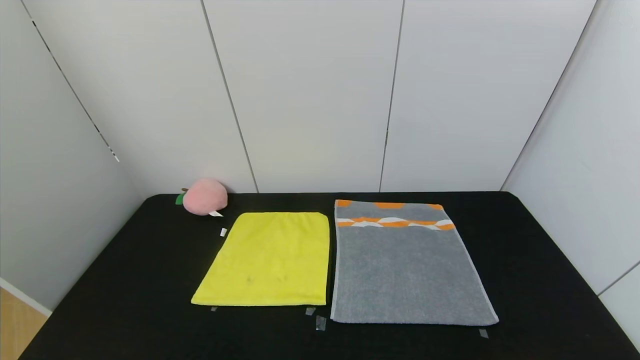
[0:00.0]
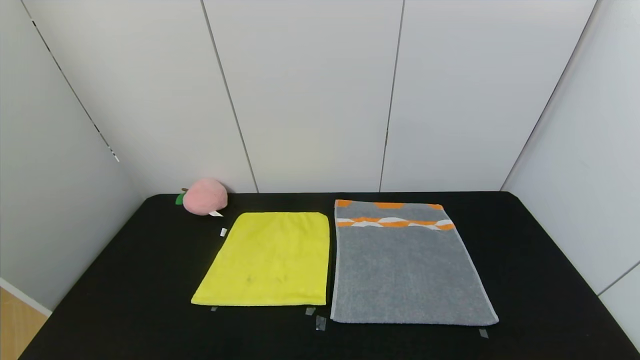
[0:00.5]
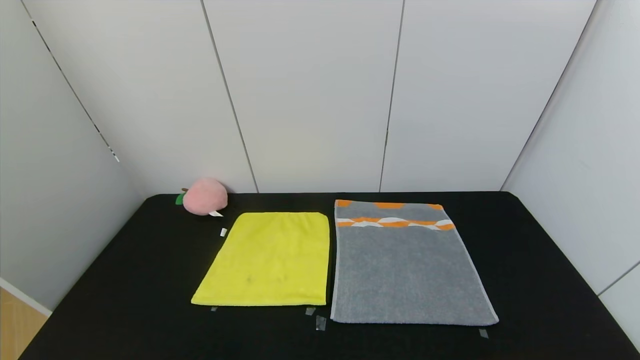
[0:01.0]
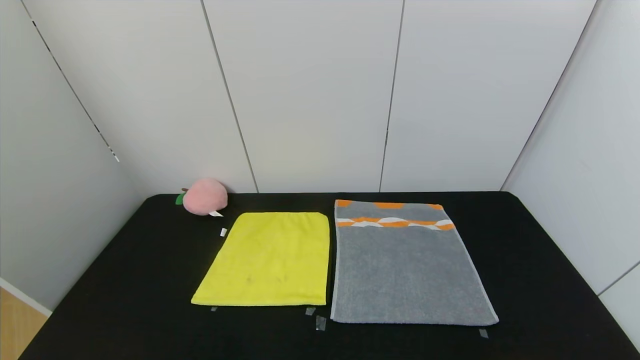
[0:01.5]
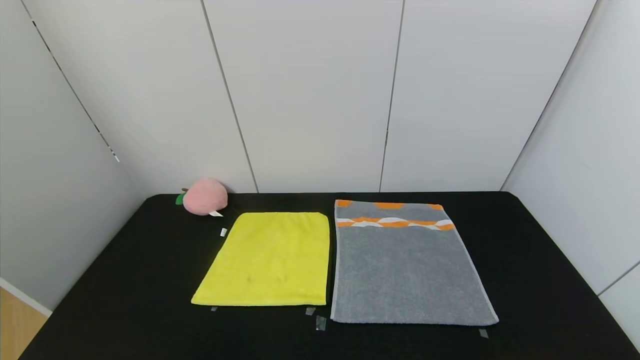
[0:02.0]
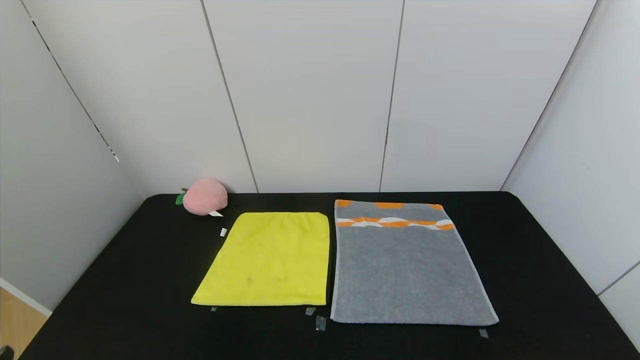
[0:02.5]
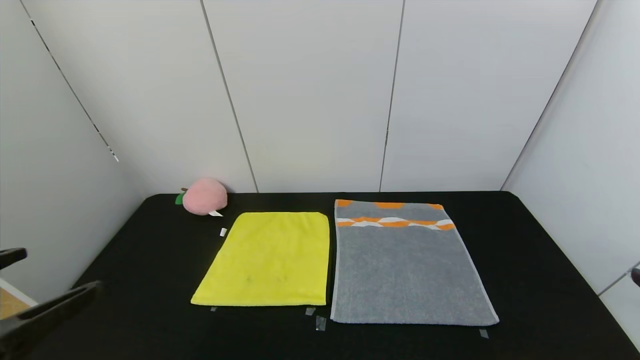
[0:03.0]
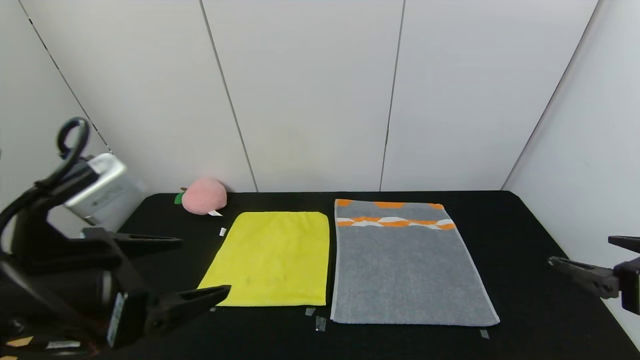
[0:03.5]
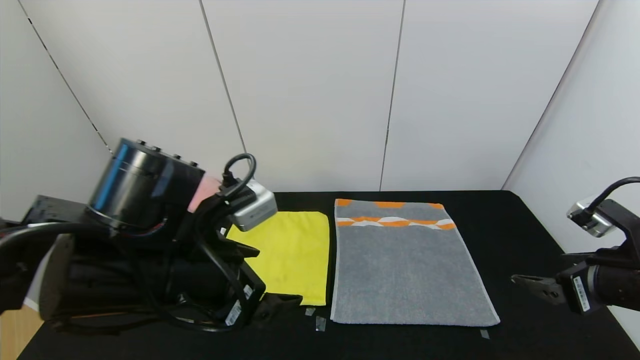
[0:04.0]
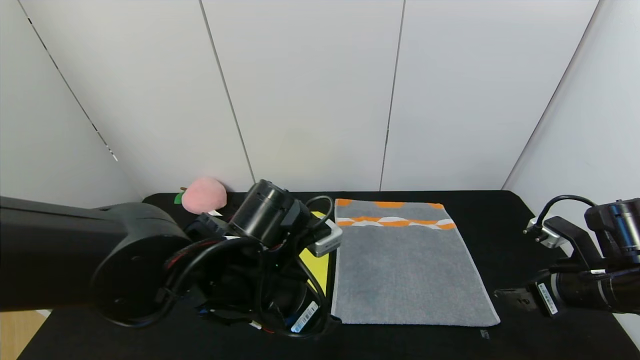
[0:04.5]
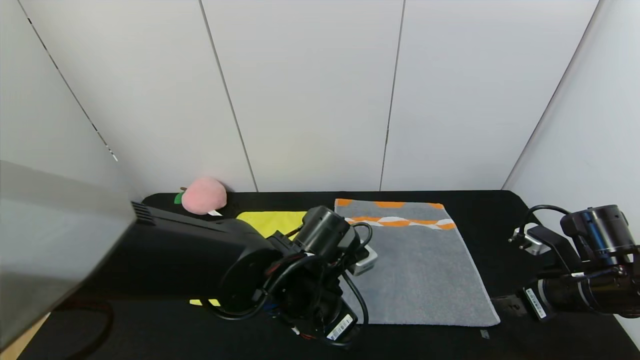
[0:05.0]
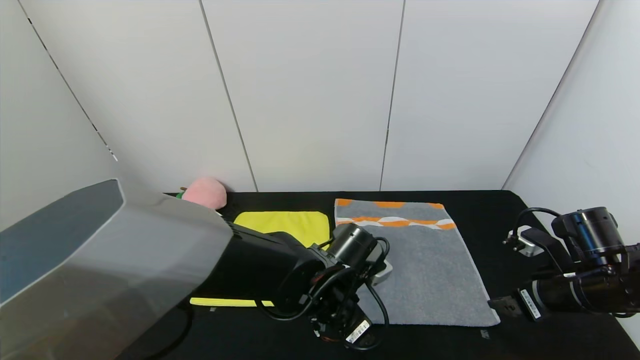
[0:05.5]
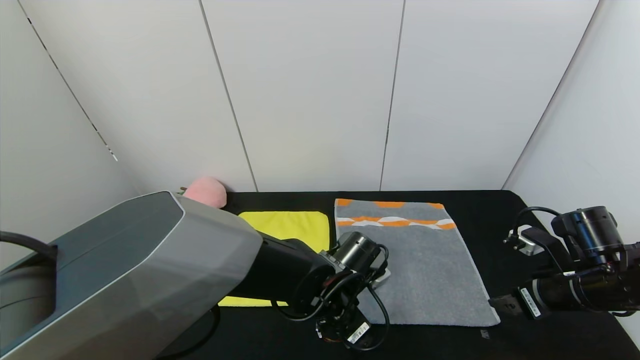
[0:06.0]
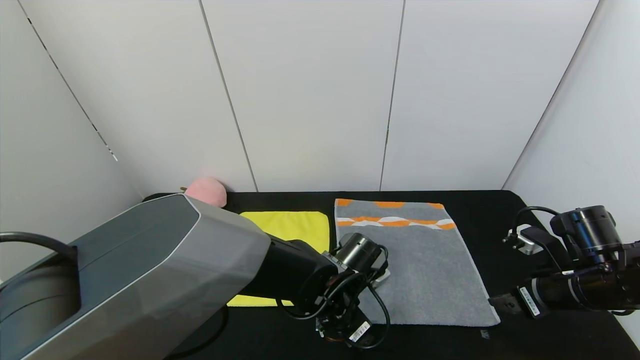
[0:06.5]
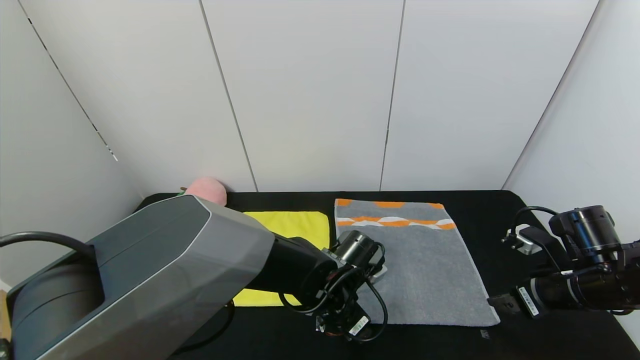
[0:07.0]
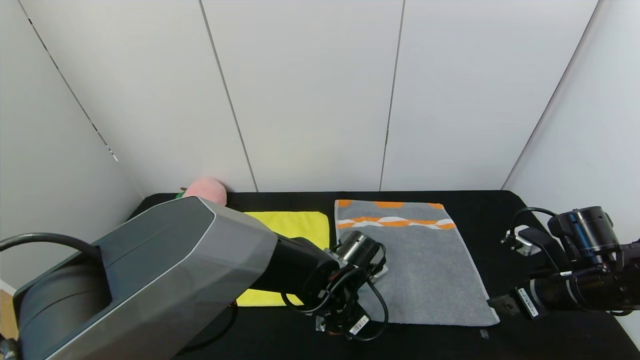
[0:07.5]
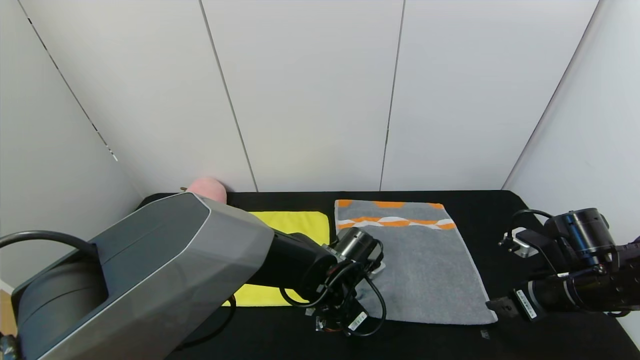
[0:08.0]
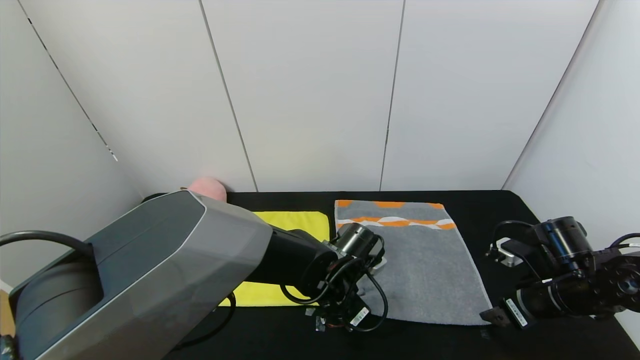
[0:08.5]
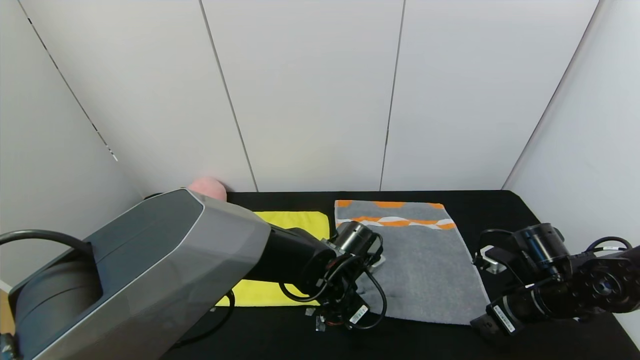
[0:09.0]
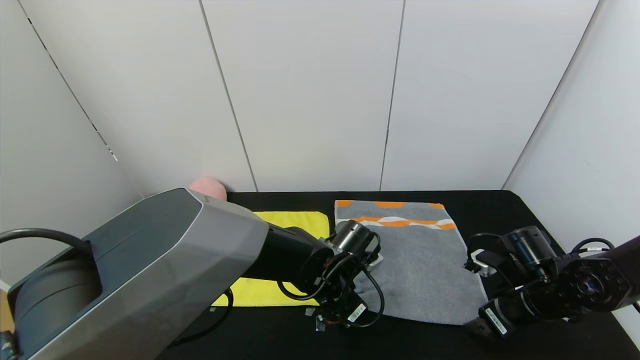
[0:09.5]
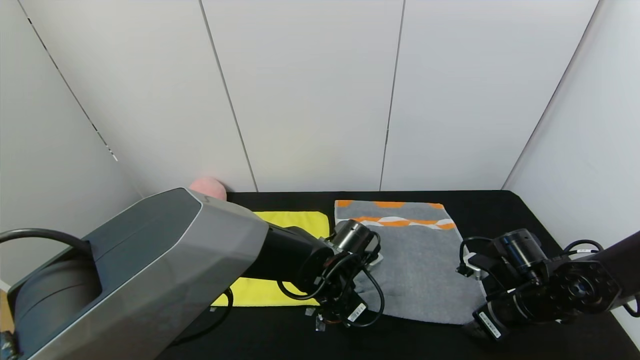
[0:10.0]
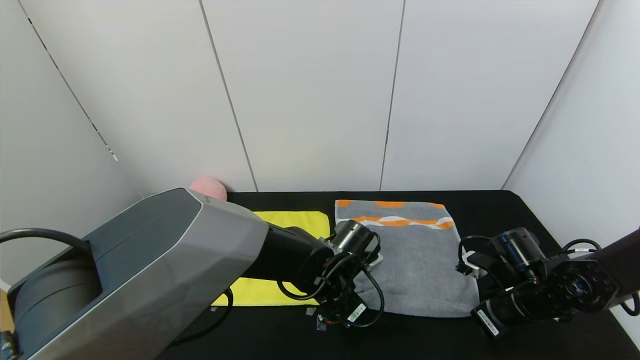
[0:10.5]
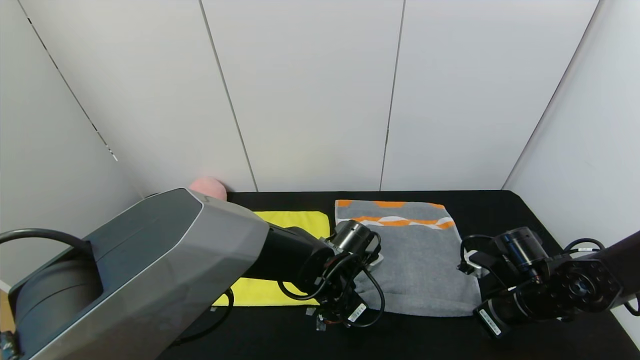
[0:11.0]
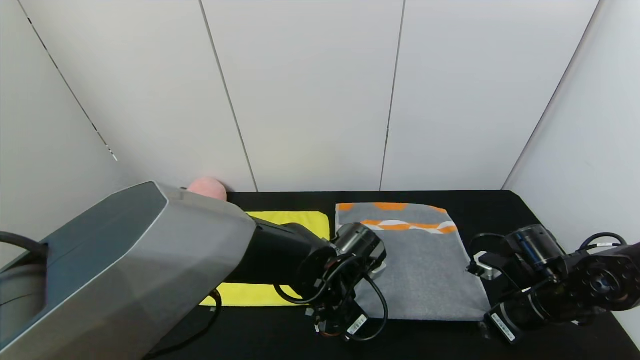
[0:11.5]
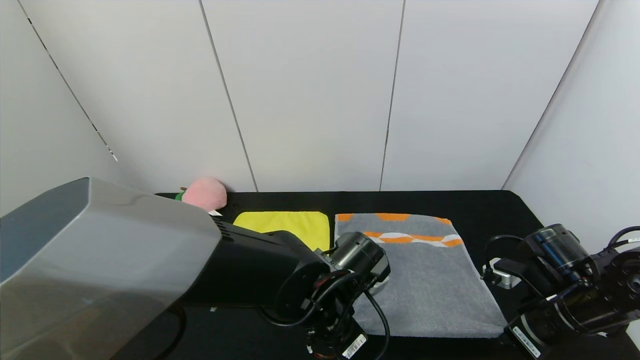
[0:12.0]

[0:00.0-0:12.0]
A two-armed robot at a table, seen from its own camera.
Task of the whole recording: Use the gripper to fold the yellow towel and grey towel in half twice,then put the yellow towel on the grey towel.
0:02.0 to 0:04.0: The left gripper goes about 30 cm forward, to the right and upward. Meanwhile the right gripper goes some 25 cm forward.
0:04.0 to 0:06.0: The right gripper shifts about 10 cm downward and forward. The left gripper moves downward, to the right and forward, roughly 25 cm.
0:06.0 to 0:08.0: The left gripper closes up.
0:08.0 to 0:10.0: The right gripper travels downward by some 5 cm.
0:10.0 to 0:12.0: The right gripper ends up roughly 5 cm from where it was, and closes its fingers. Meanwhile the left gripper goes roughly 5 cm backward.

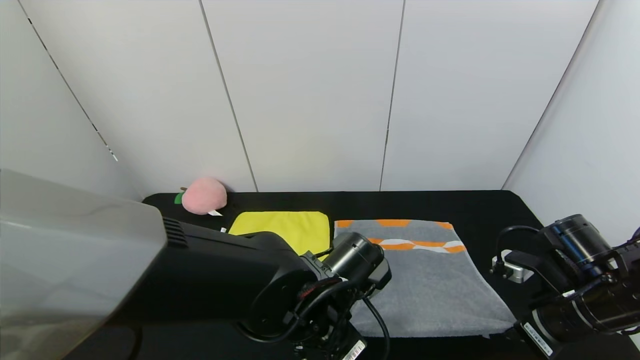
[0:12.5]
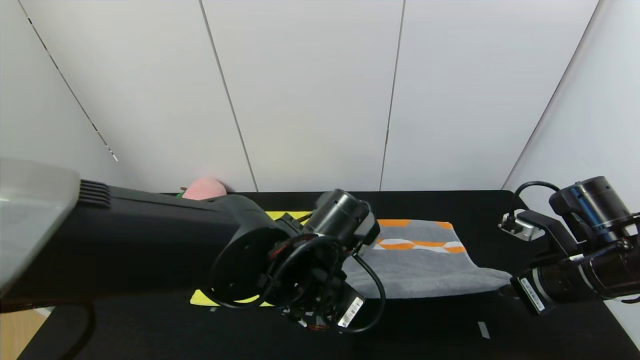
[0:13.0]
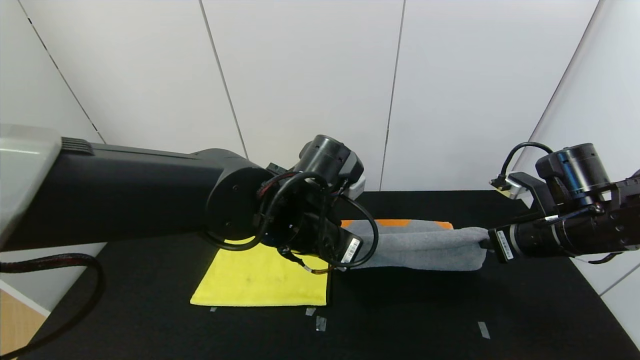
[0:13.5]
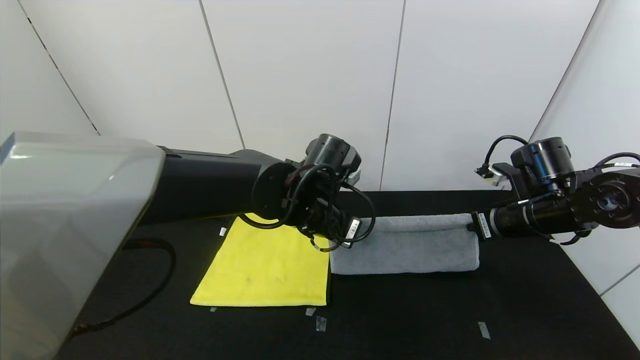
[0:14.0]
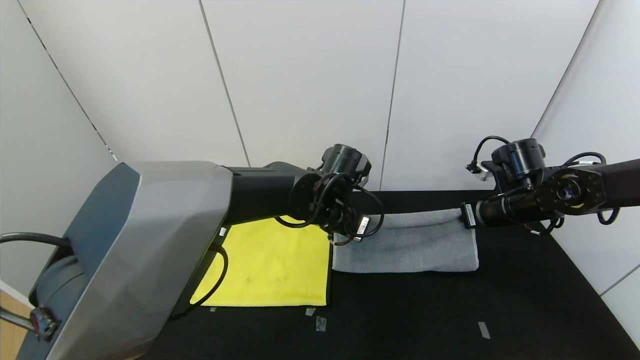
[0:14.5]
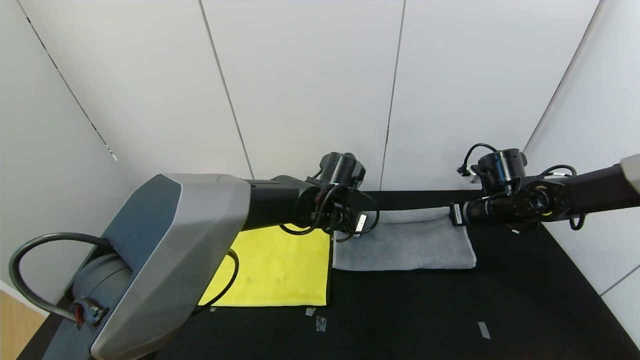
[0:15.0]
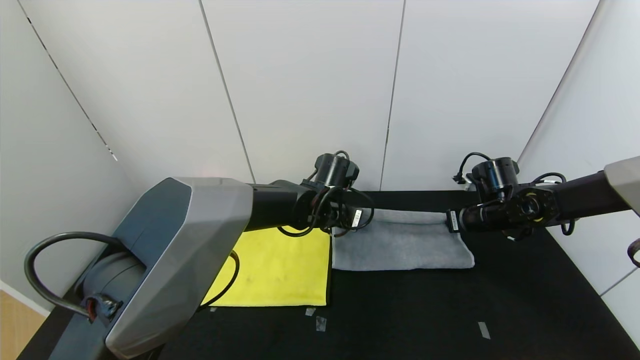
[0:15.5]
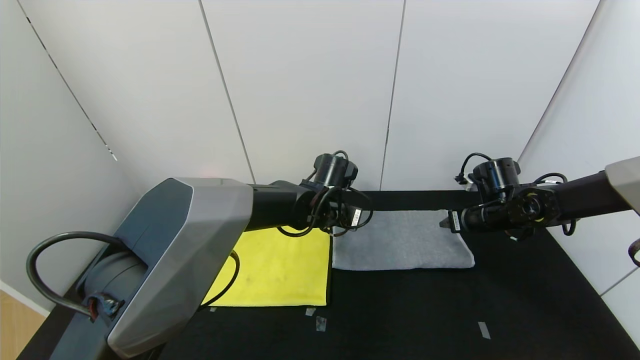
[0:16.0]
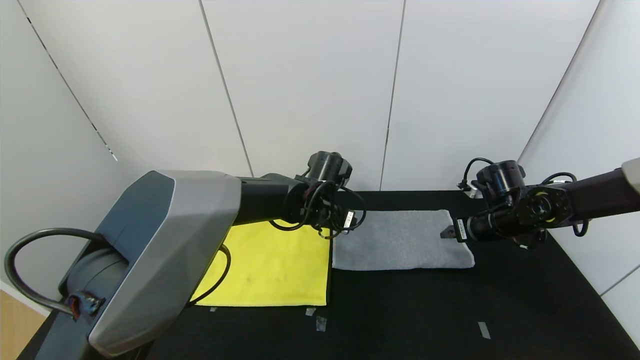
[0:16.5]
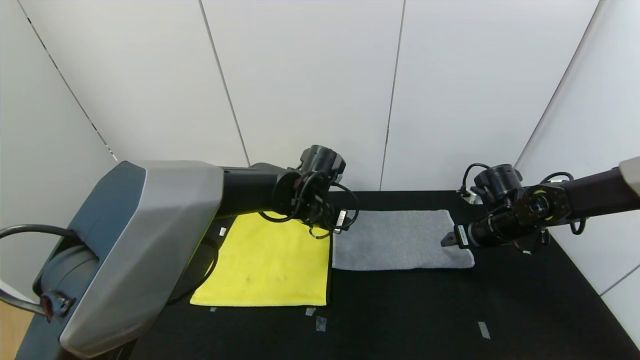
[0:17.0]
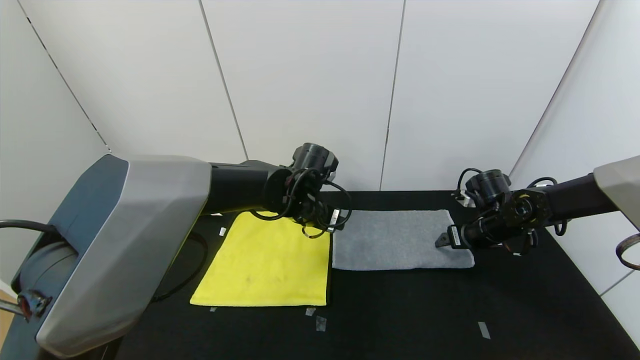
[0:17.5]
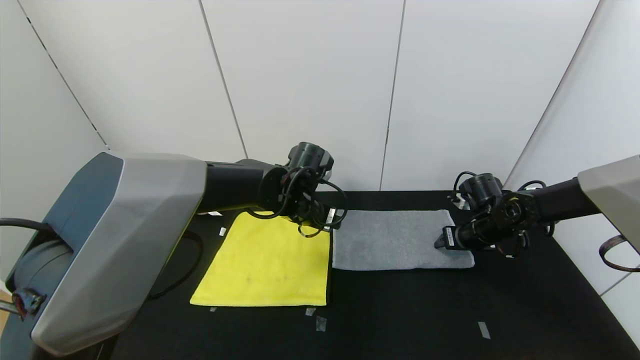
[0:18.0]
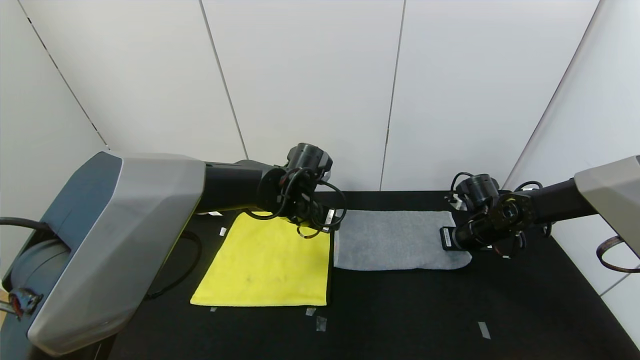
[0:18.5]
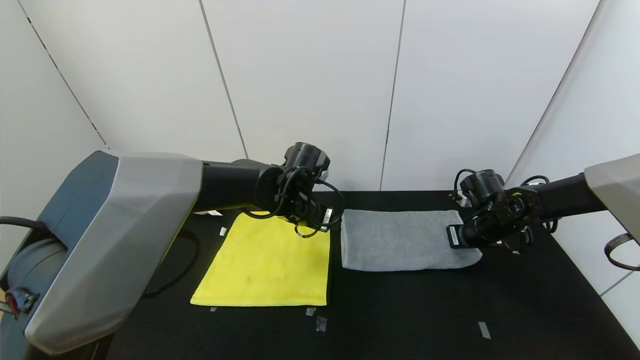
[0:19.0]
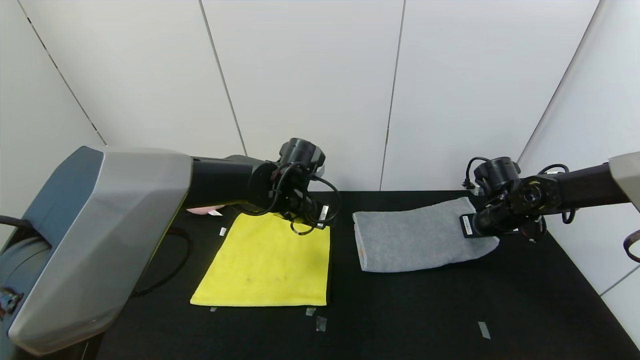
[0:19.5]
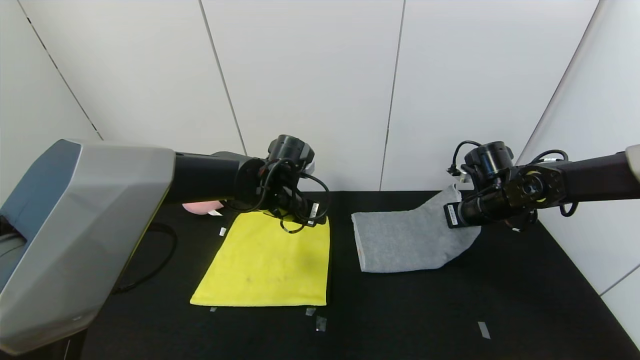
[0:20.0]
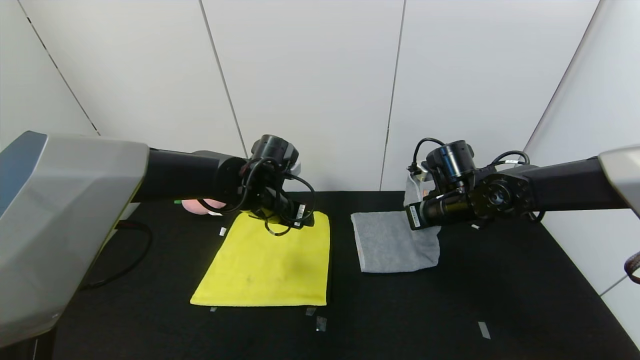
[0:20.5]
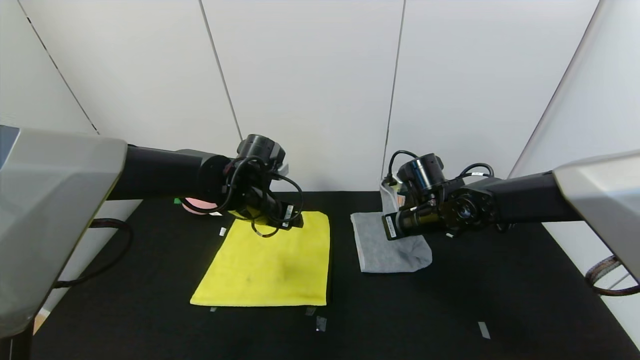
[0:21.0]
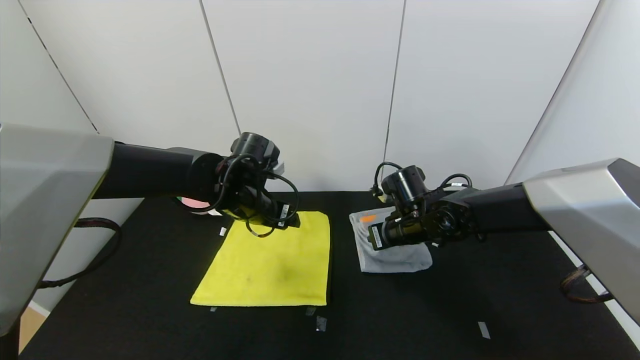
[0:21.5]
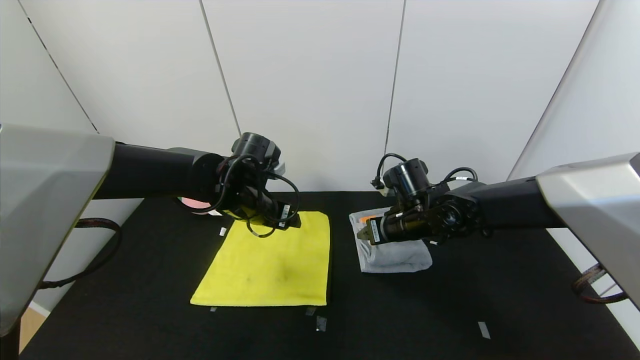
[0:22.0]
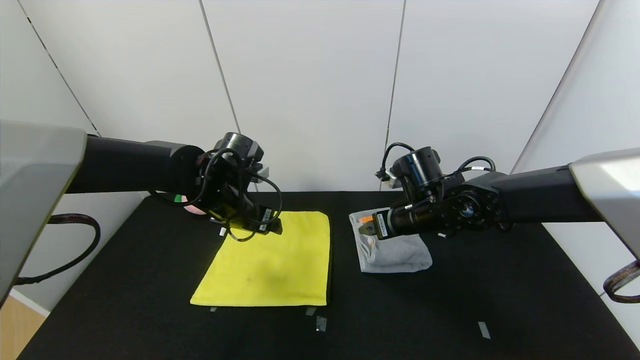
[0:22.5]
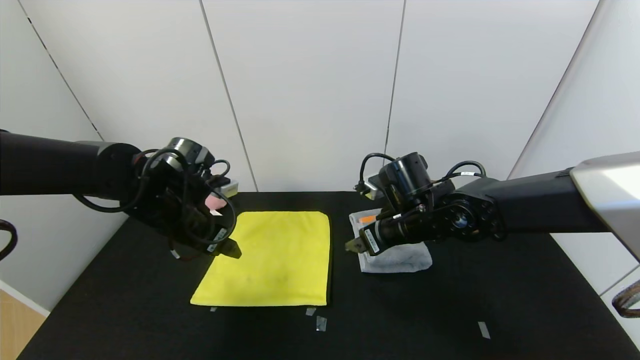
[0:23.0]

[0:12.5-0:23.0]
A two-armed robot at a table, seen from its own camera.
Task of the whole recording: Use the gripper to fold the yellow towel and grey towel in half twice,then put the yellow towel on the grey towel.
Step, 0:12.5 to 0:15.5: Fold the gray towel upwards with the left gripper.
Step, 0:16.0 to 0:21.5: Fold the gray towel from right to left with right gripper.
0:12.5 to 0:14.5: The grippers both shift forward by about 15 cm.
0:14.5 to 0:16.5: The left gripper opens. The right gripper opens up.
0:16.5 to 0:19.0: The right gripper closes up.
0:19.0 to 0:21.0: The right gripper goes about 15 cm to the left, while the left gripper goes about 5 cm to the left.
0:21.0 to 0:23.0: The left gripper goes some 10 cm to the left and backward. Meanwhile the right gripper changes place by roughly 5 cm, and opens up.
